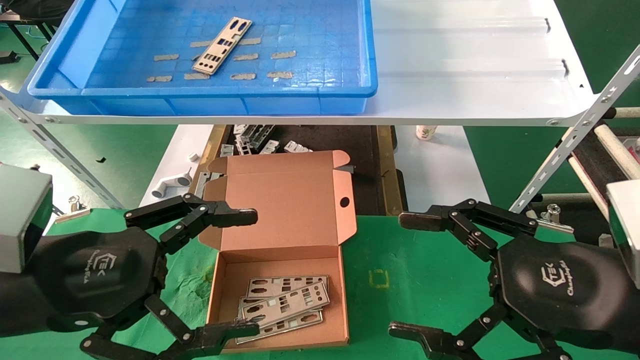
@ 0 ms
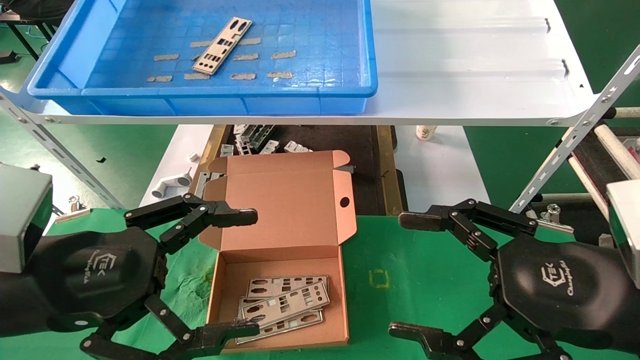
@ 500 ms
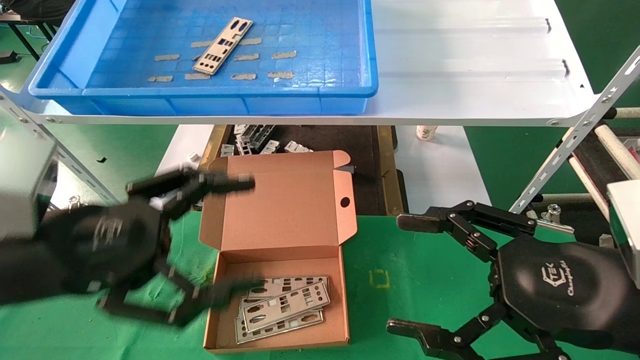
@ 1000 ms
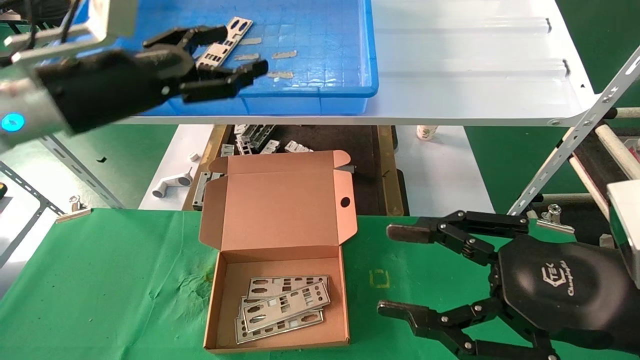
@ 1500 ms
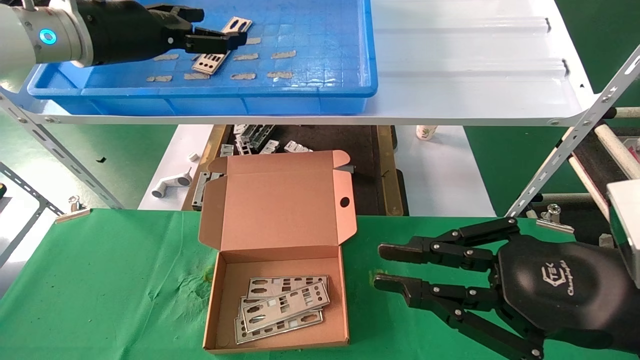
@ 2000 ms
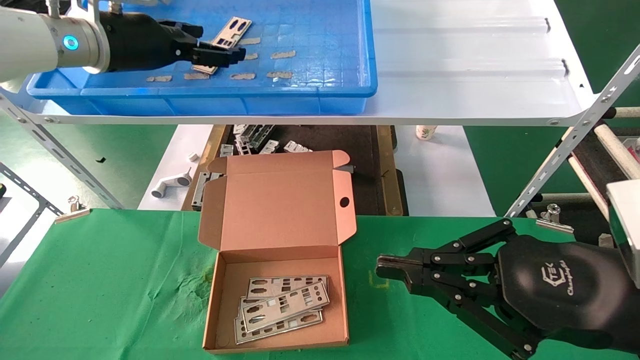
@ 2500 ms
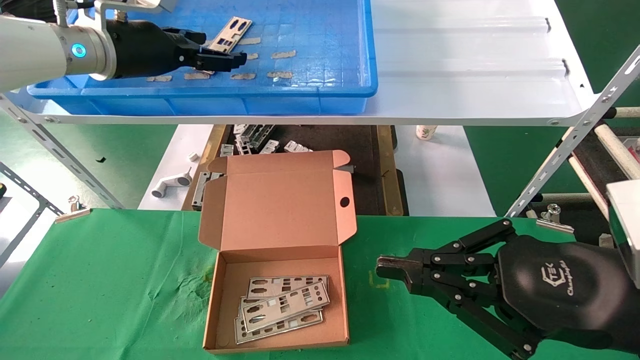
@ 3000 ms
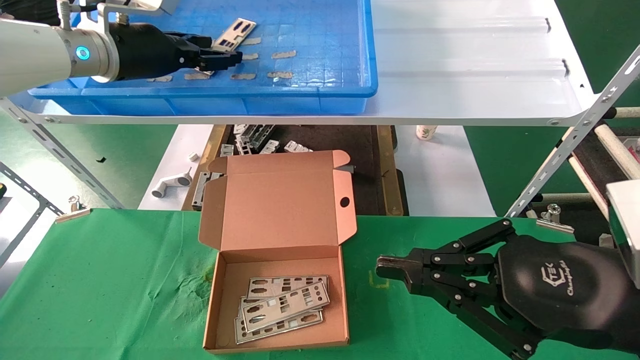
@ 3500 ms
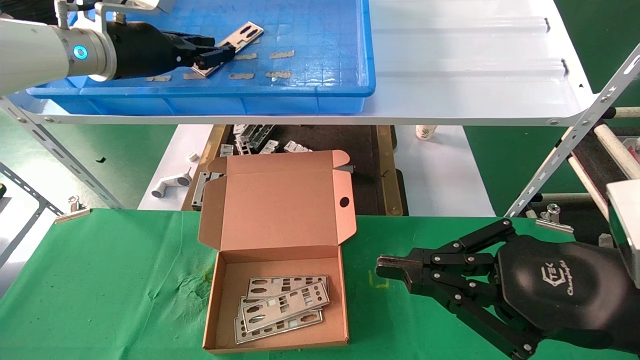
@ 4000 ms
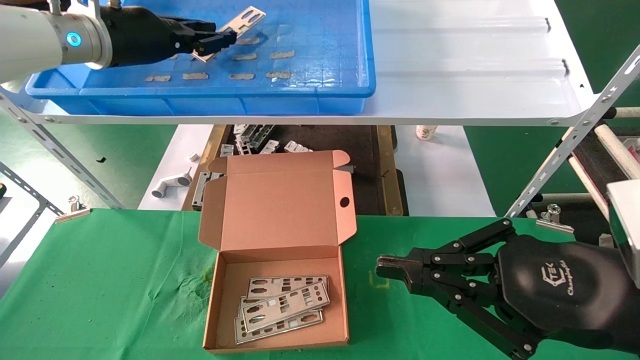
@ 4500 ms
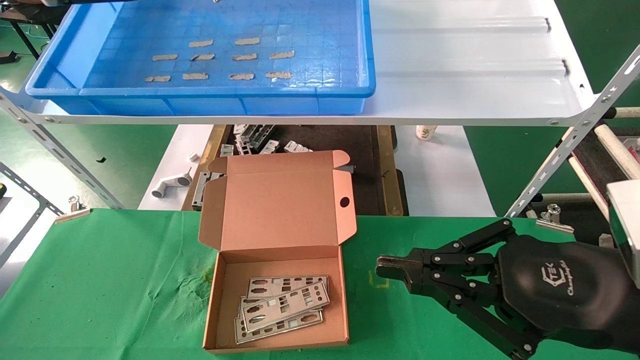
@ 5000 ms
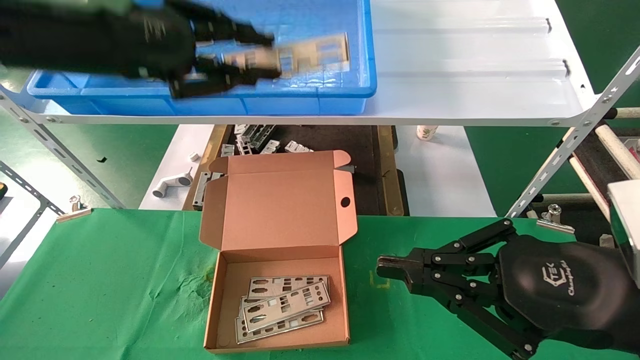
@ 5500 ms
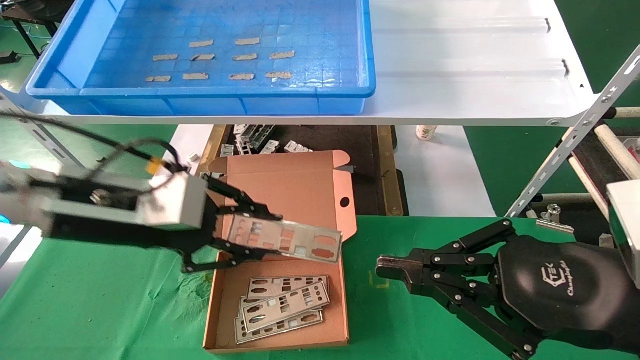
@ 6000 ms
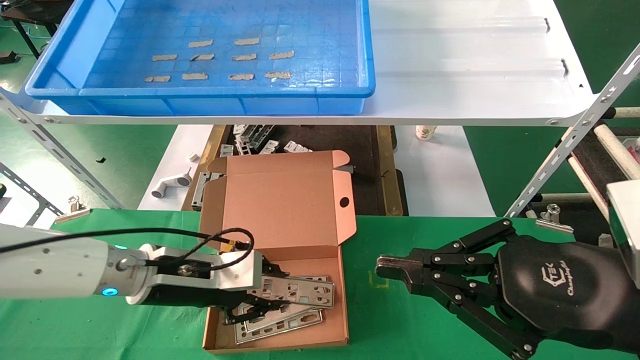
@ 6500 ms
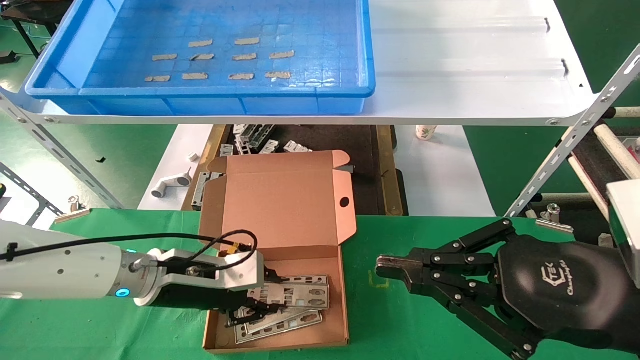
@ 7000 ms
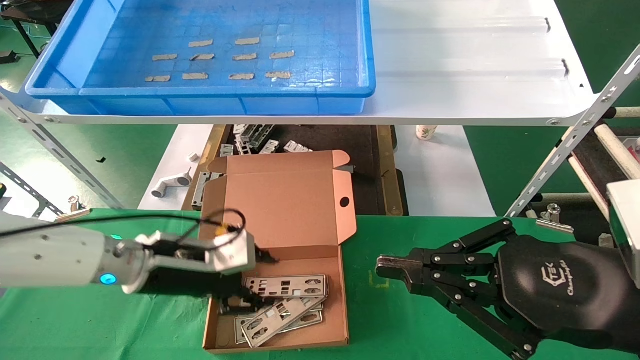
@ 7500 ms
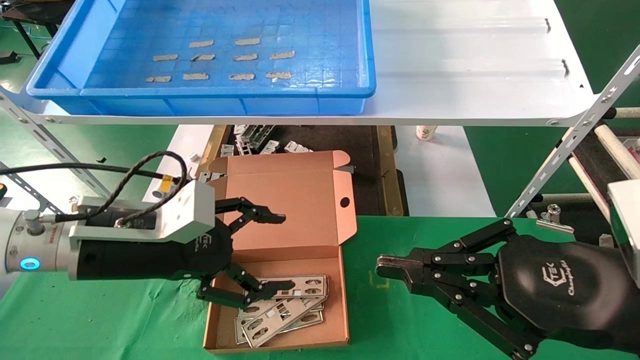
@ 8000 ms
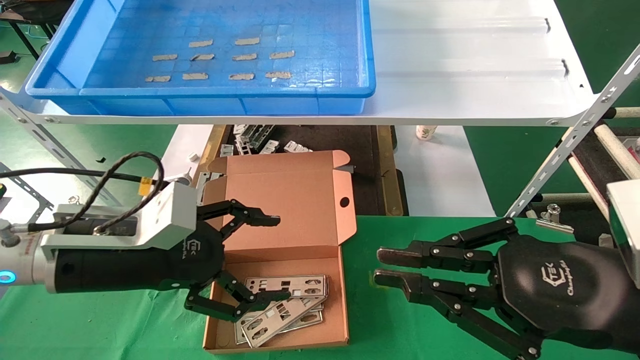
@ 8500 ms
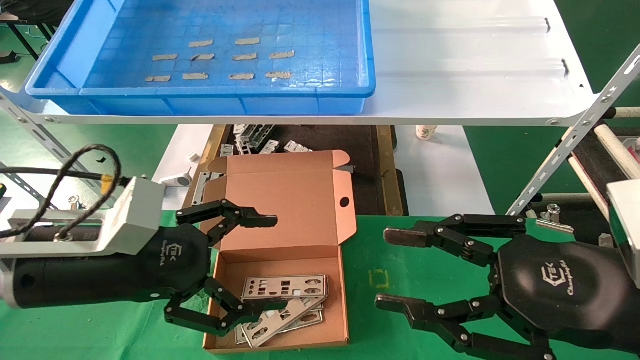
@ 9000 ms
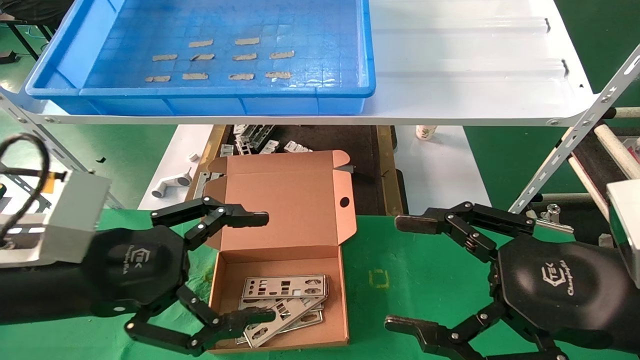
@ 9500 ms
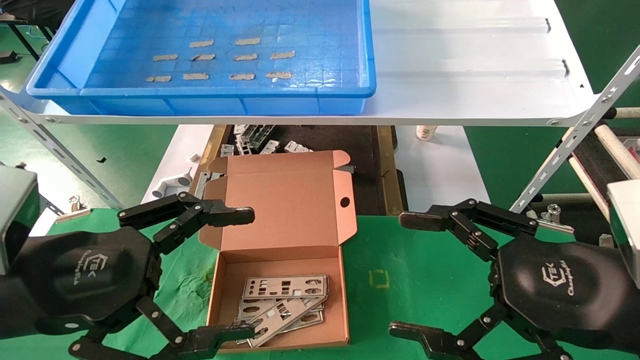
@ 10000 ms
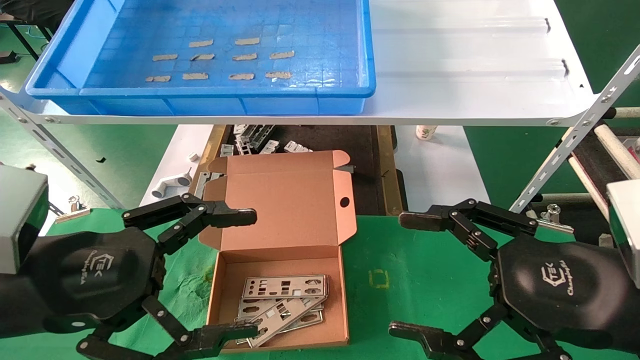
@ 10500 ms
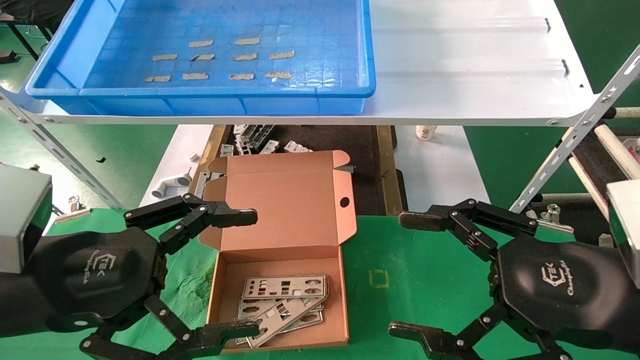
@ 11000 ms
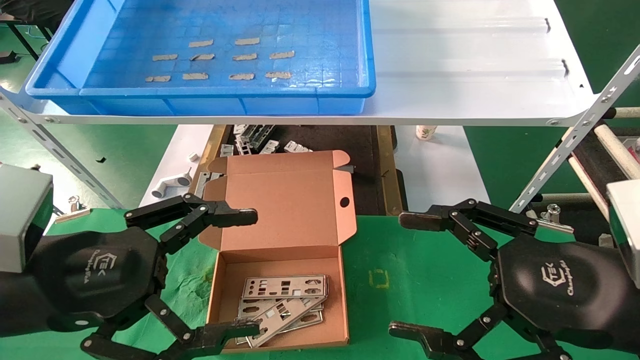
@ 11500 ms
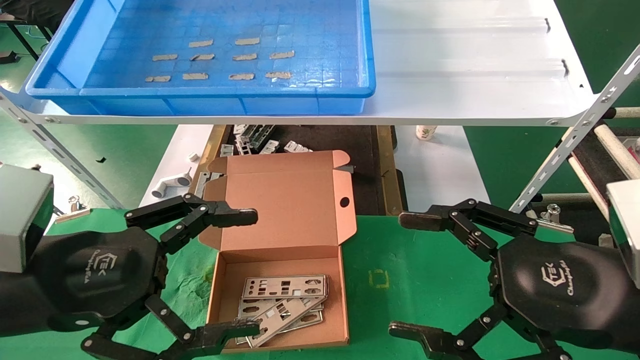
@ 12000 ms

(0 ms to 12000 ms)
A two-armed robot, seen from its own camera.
Task of the whole recording: pick up the parts on the tray and put them in the cardboard box.
Step, 1500 ms - 4500 ms: Pick up the IO bracket from the container box.
Step, 5000 ms - 7500 ms: Place the IO bracket into the ingredient slot.
0 ms - 2000 ms: The left gripper heads forward and upward, covering approximately 30 cm, while the right gripper closes its fingers.
2000 ms - 4000 ms: The left gripper closes.
4000 ms - 6000 ms: The left gripper travels downward and backward by approximately 20 cm.
6000 ms - 8000 ms: The left gripper travels downward by roughly 5 cm, and opens its fingers.
8000 ms - 10000 ms: The right gripper opens up; the left gripper travels backward by approximately 10 cm.
10000 ms - 12000 ms: The two grippers keep their place.

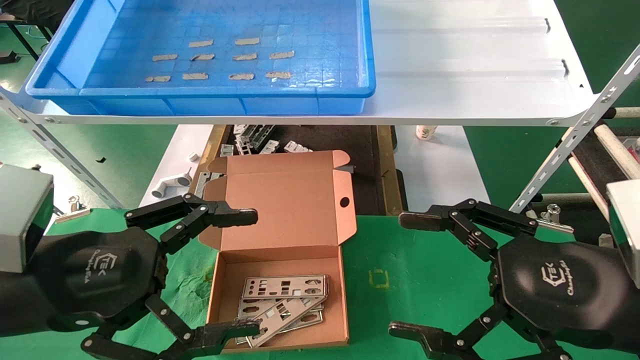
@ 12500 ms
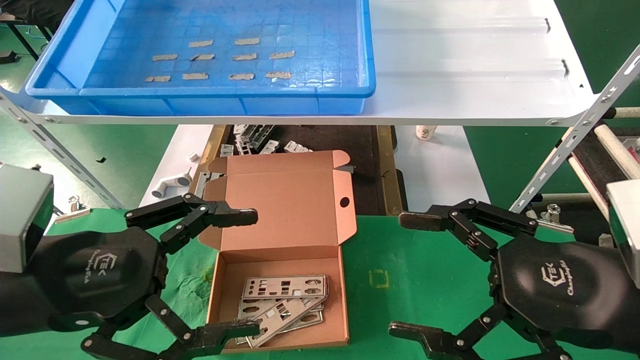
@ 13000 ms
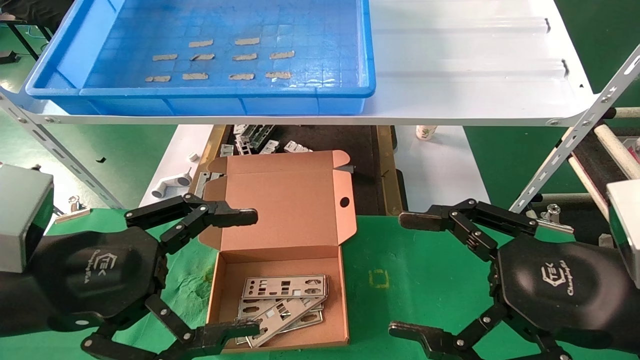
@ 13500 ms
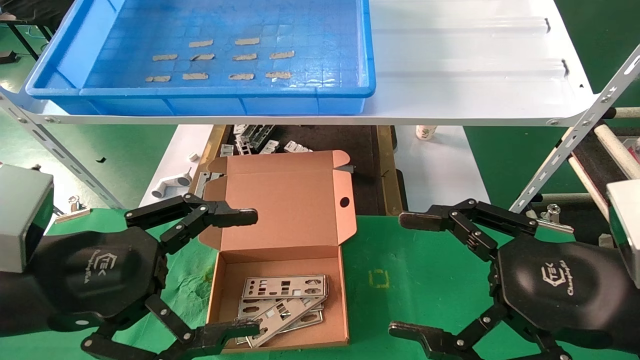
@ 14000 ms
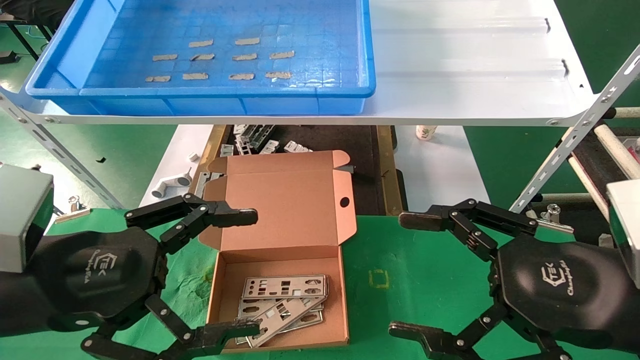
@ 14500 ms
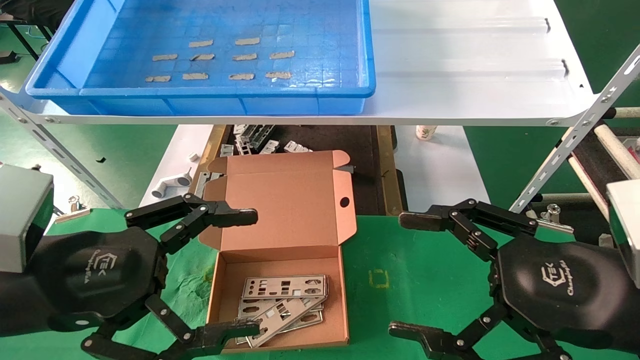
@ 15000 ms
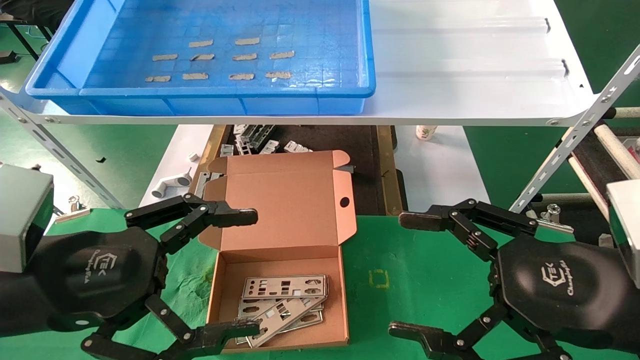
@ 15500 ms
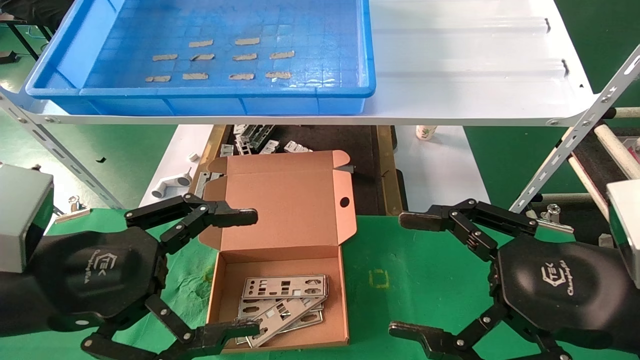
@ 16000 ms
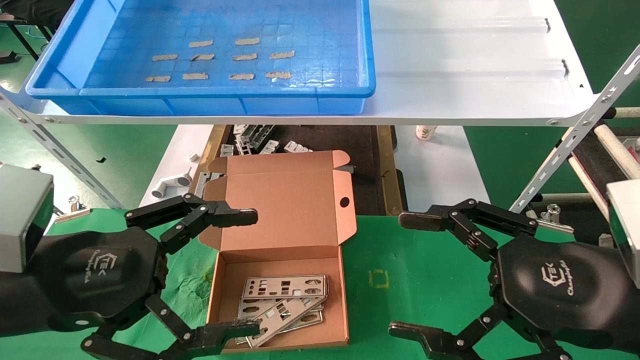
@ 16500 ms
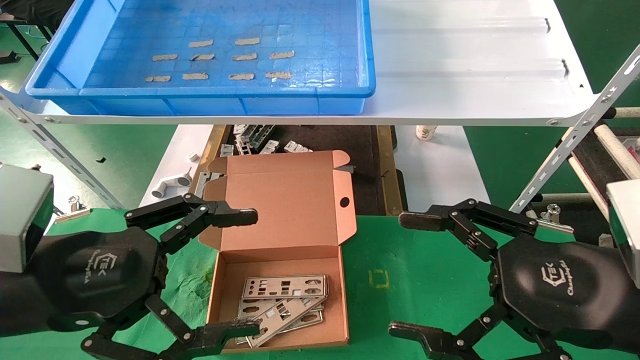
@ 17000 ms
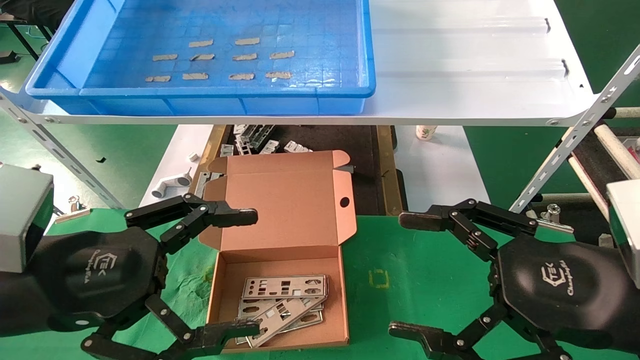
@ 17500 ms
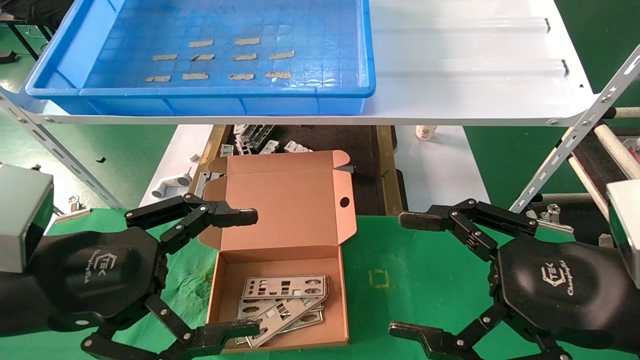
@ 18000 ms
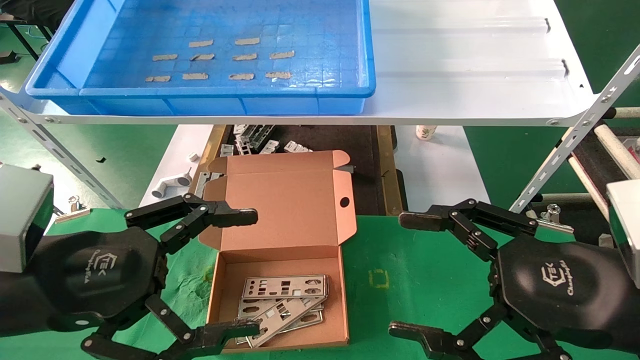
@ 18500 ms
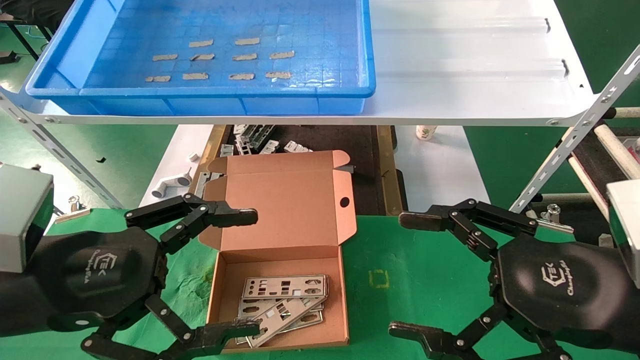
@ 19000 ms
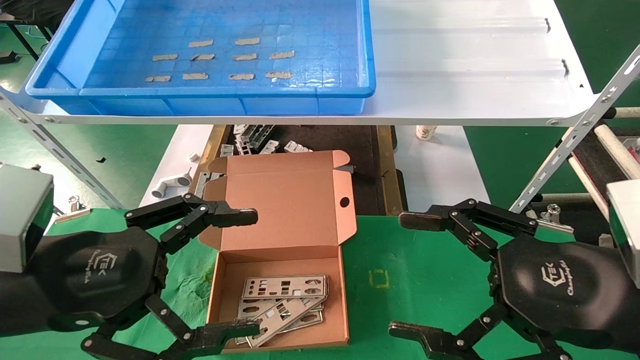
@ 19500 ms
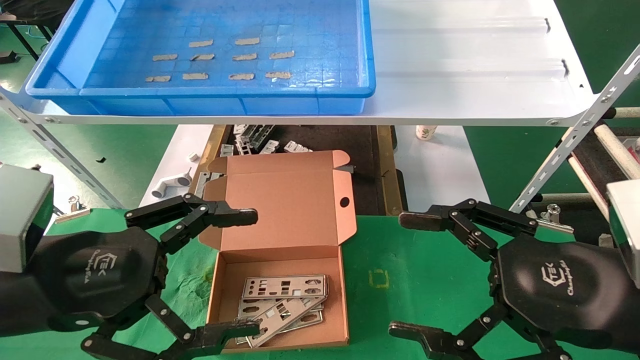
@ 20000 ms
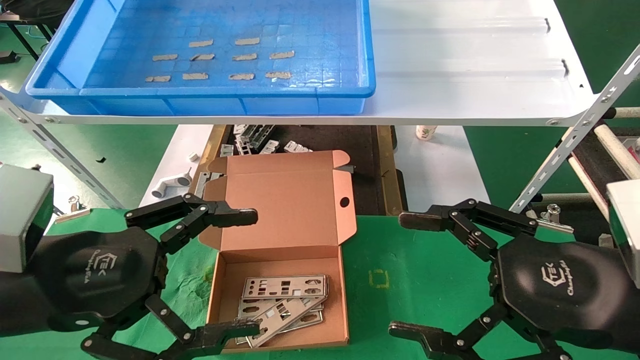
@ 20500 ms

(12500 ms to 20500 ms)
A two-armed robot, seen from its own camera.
Task of the whole recording: pick up the parts on the tray and put them in the cardboard box.
12500 ms - 20500 ms: Neither gripper changes place.
